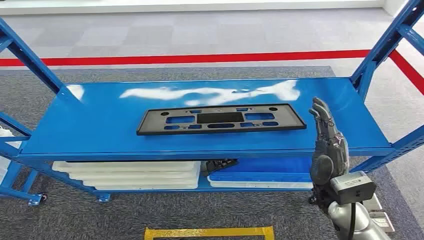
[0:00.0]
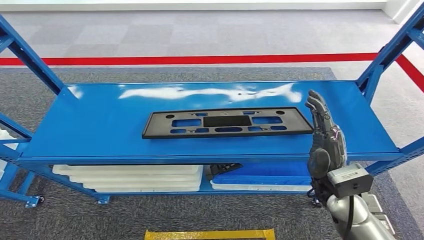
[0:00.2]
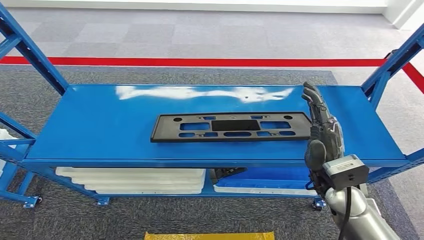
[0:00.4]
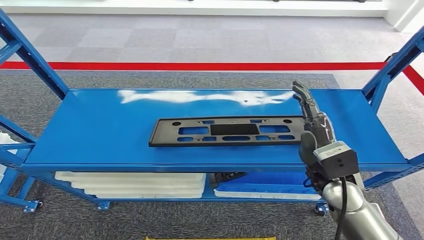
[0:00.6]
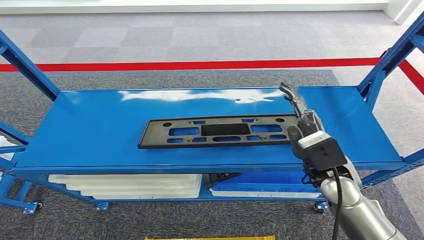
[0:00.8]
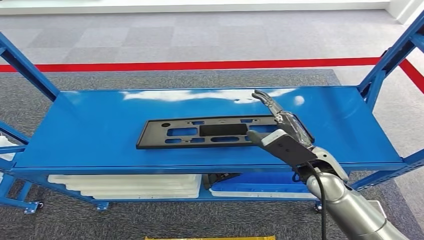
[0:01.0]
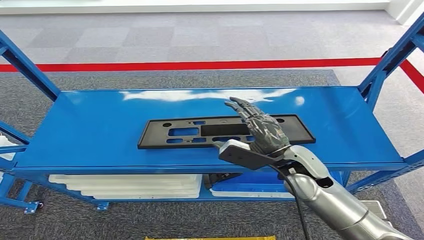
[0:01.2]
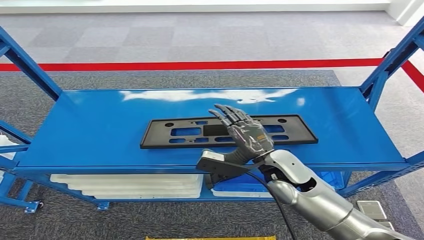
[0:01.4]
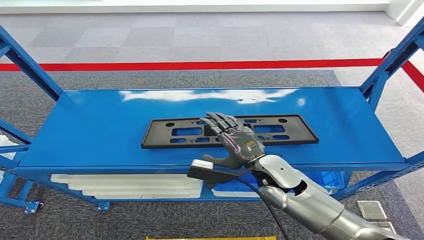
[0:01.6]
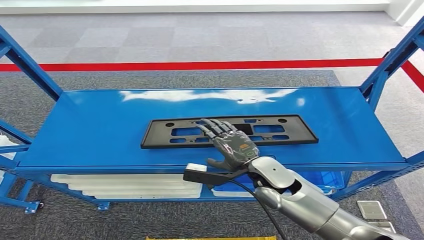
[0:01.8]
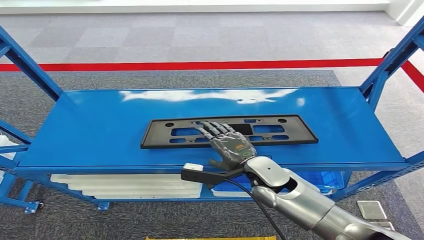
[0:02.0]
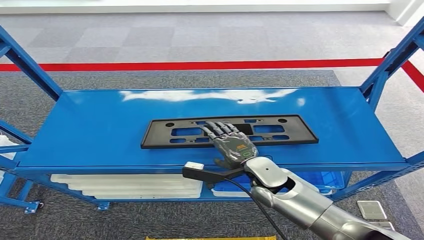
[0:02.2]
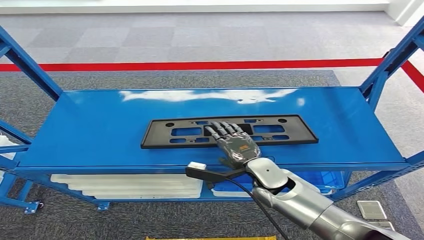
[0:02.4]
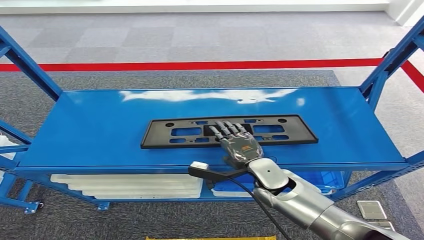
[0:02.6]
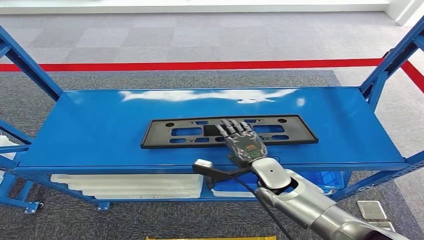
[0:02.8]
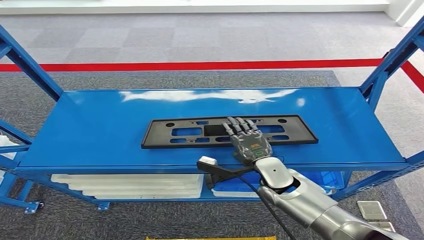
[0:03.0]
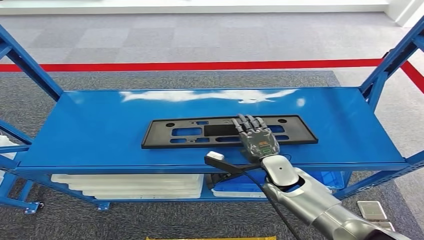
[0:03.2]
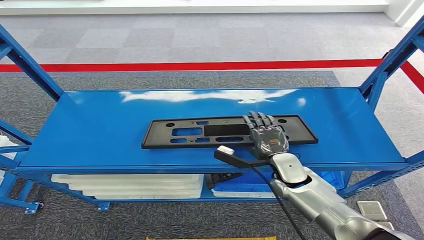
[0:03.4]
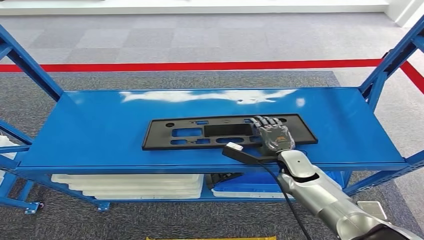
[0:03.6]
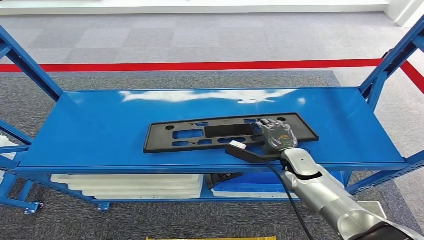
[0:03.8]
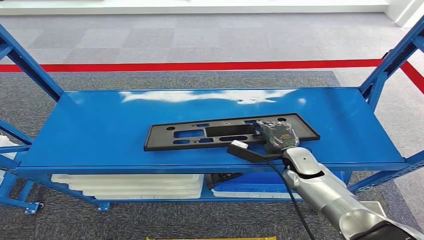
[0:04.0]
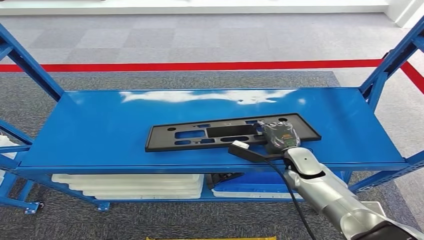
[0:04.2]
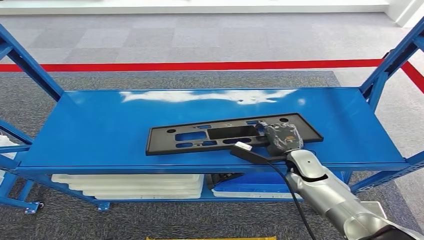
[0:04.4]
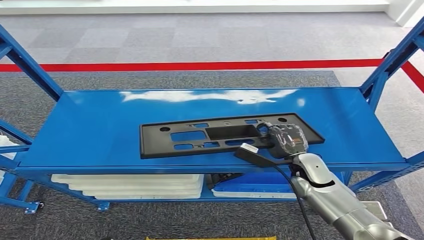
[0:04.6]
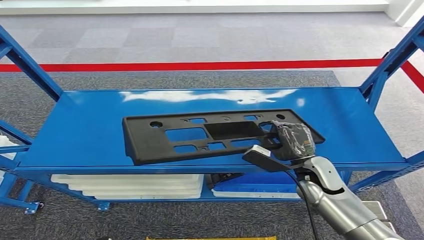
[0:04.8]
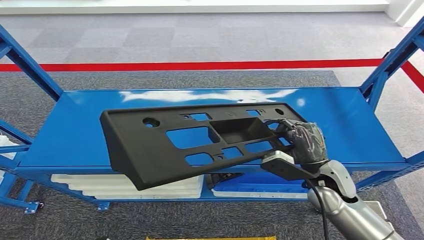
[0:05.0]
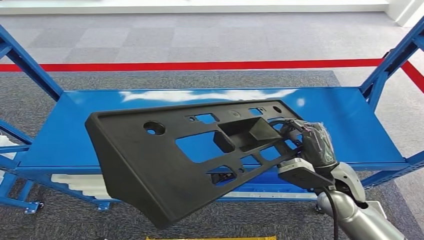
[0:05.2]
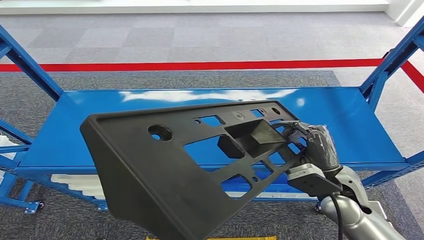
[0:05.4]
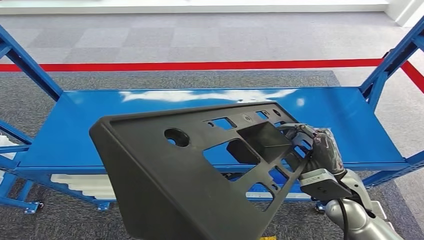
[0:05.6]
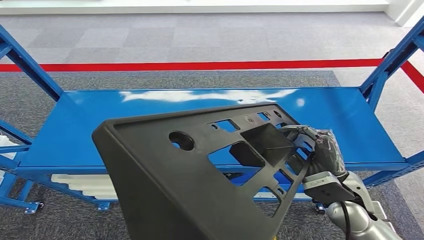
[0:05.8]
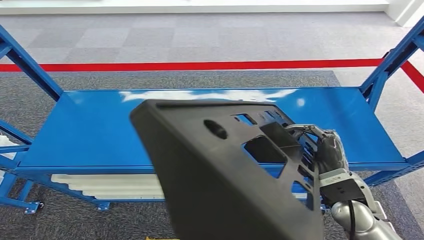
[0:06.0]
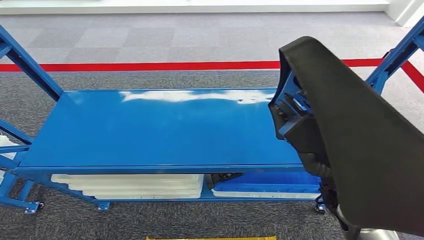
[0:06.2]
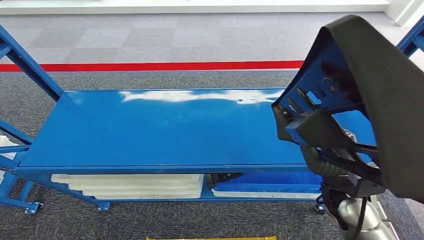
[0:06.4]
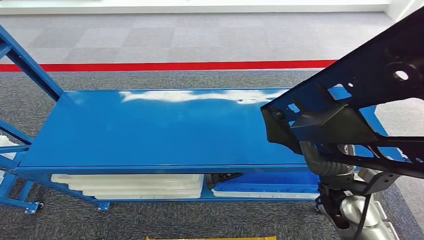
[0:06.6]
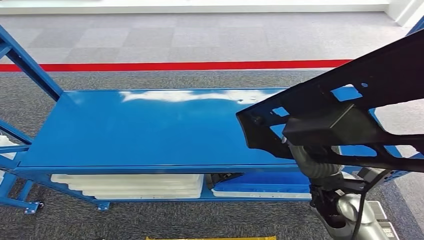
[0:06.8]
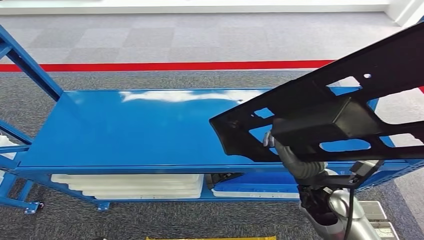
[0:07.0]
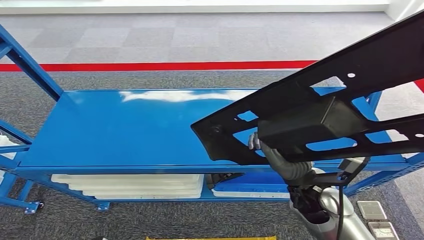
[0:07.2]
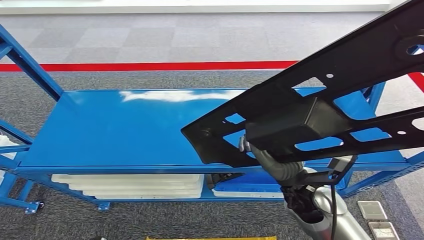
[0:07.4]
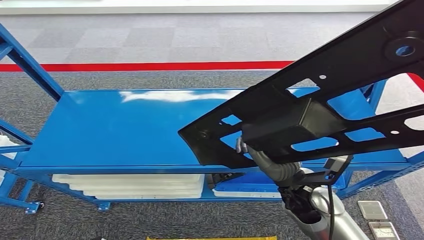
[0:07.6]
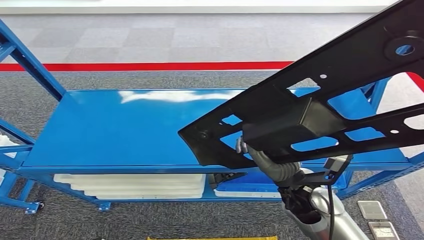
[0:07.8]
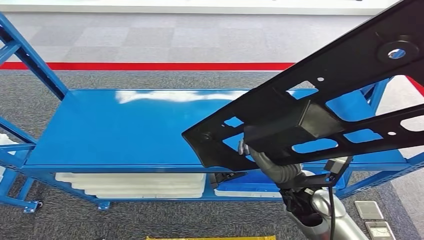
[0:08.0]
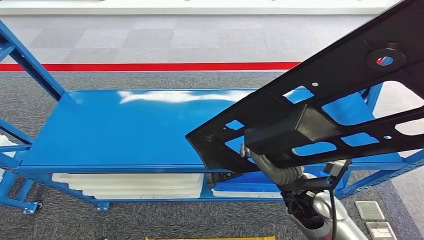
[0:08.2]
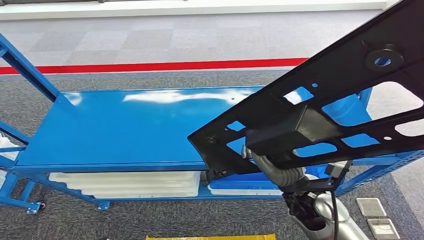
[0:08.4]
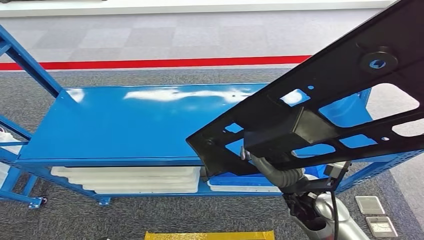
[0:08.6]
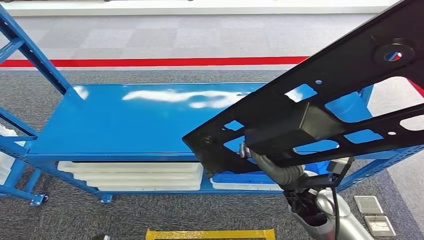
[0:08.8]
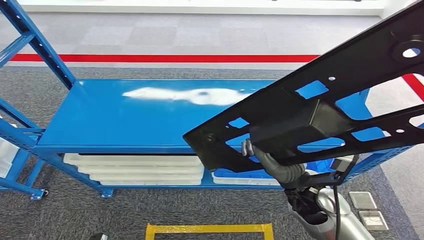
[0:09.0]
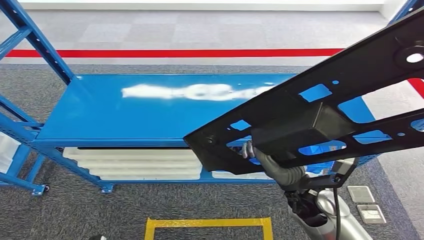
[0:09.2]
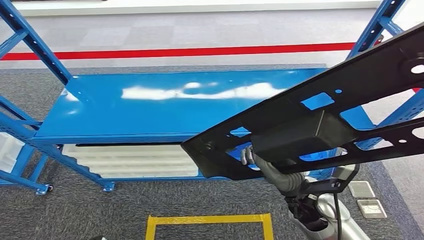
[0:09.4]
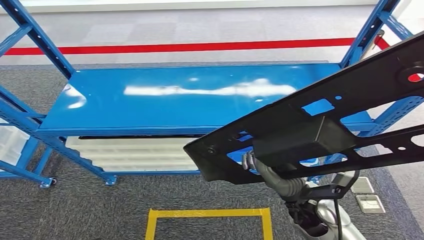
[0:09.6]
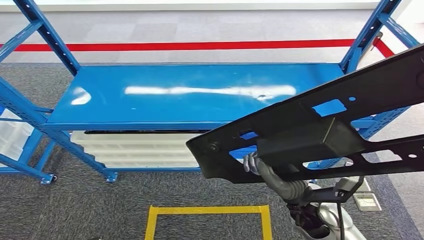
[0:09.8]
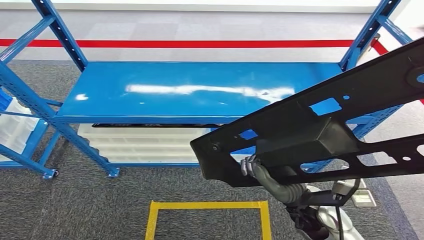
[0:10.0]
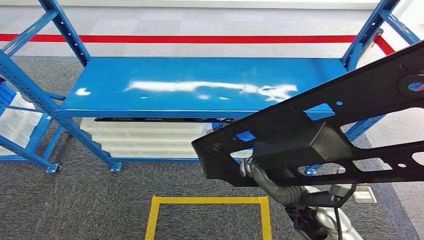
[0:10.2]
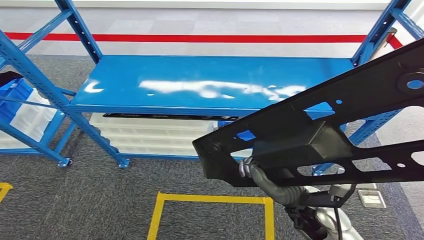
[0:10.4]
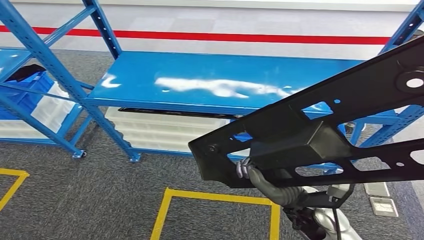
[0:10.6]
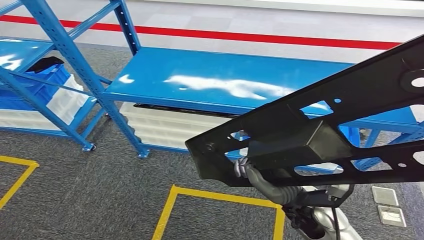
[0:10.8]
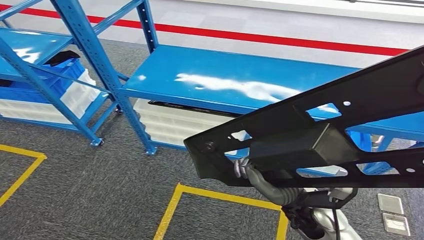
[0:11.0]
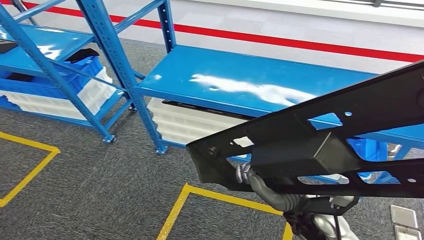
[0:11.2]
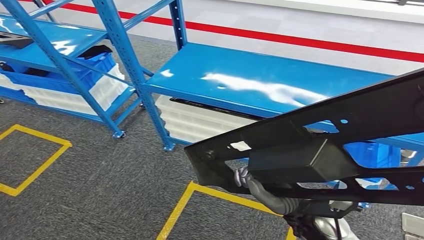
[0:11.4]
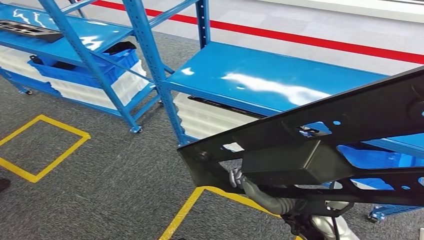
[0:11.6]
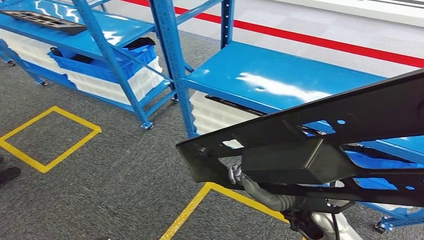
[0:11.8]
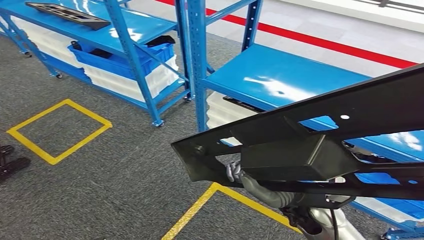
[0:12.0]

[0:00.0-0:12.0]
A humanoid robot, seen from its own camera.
Step, 0:00.0 to 0:06.2: Pick up the large material from the shelf.
0:01.6 to 0:03.0: The right hand is displaced downward by about 5 cm.
0:03.0 to 0:04.4: The right hand shifts approximately 10 cm to the right.

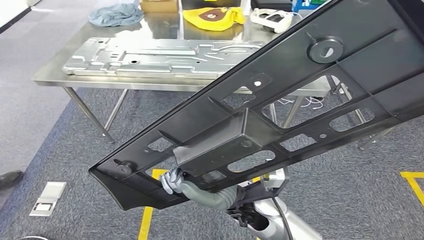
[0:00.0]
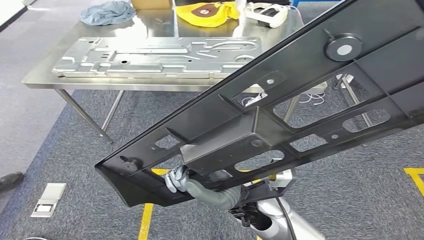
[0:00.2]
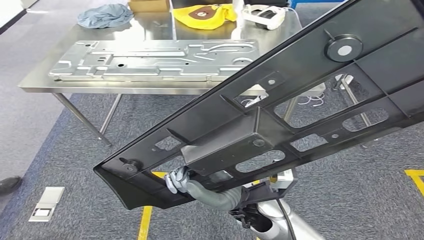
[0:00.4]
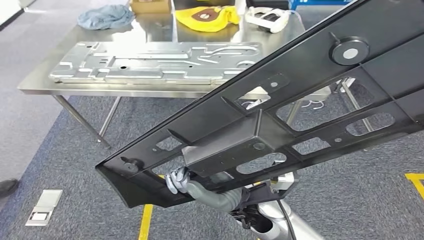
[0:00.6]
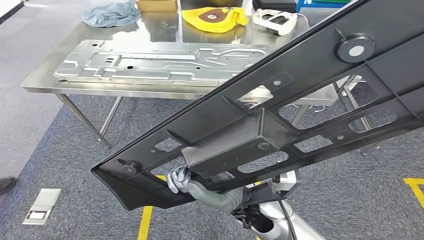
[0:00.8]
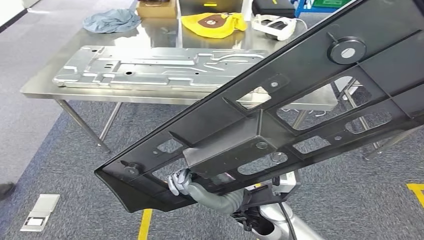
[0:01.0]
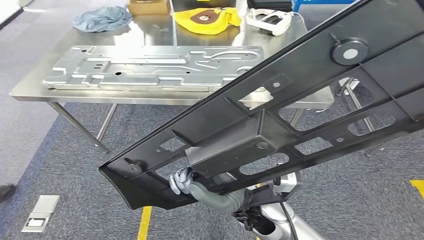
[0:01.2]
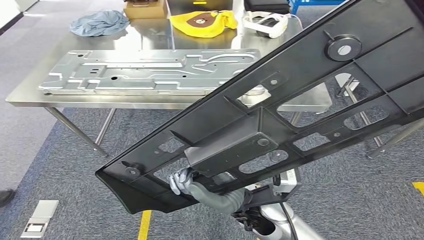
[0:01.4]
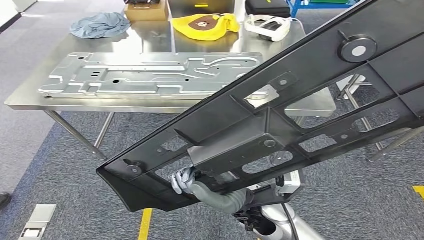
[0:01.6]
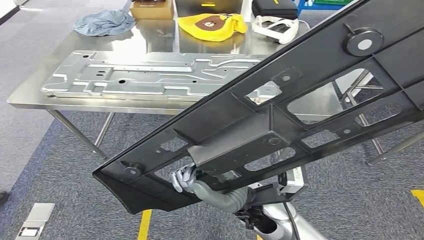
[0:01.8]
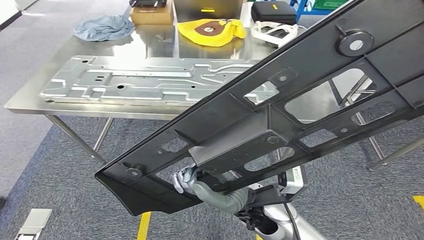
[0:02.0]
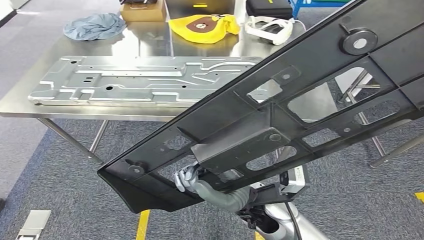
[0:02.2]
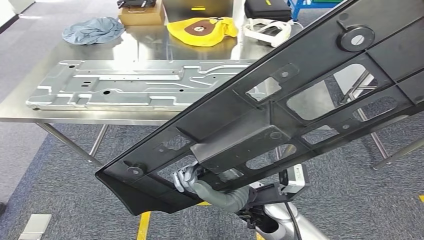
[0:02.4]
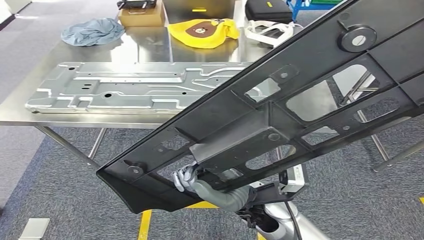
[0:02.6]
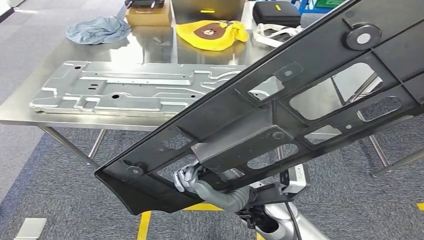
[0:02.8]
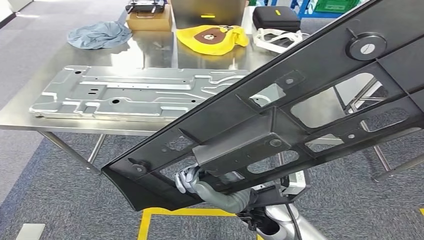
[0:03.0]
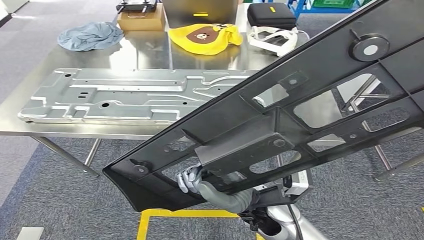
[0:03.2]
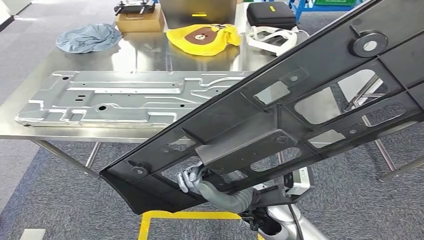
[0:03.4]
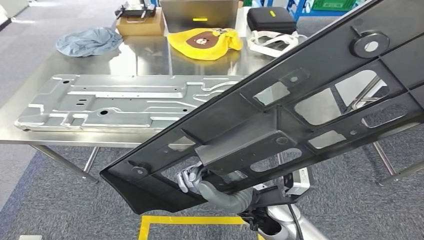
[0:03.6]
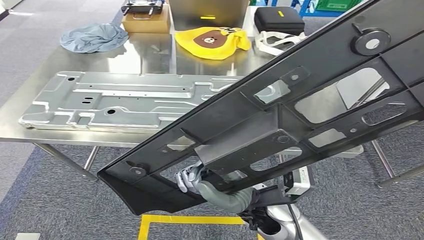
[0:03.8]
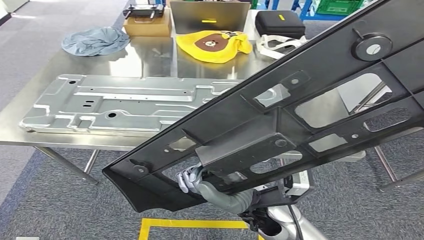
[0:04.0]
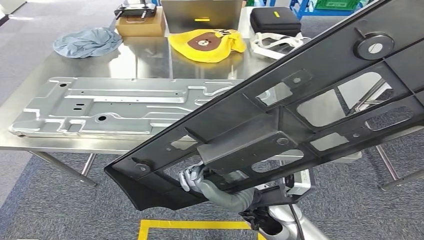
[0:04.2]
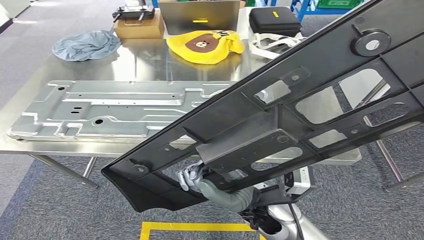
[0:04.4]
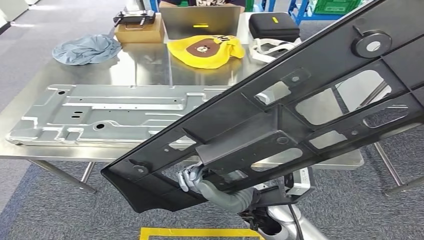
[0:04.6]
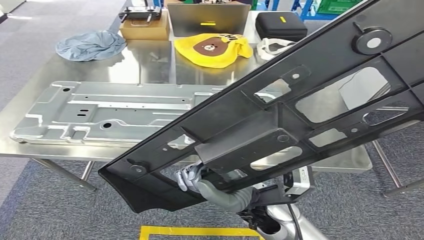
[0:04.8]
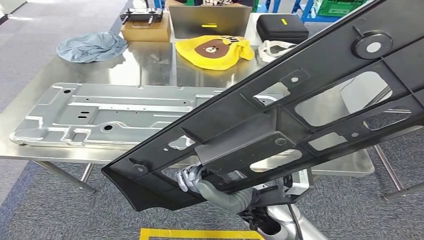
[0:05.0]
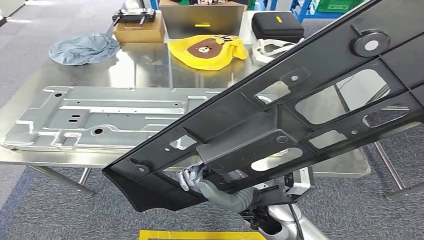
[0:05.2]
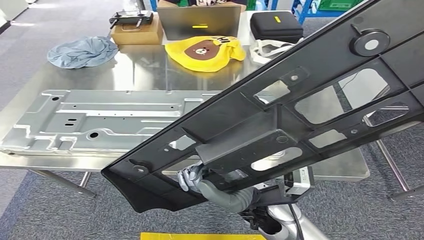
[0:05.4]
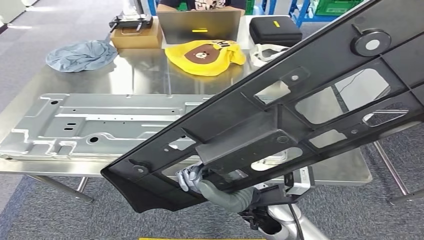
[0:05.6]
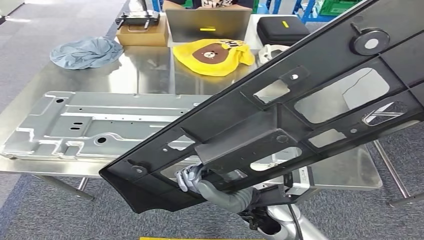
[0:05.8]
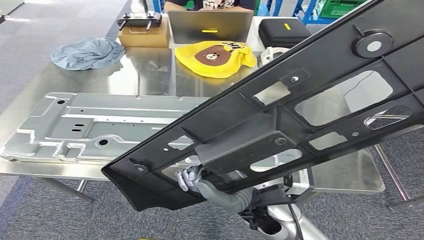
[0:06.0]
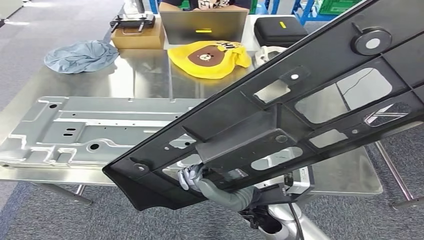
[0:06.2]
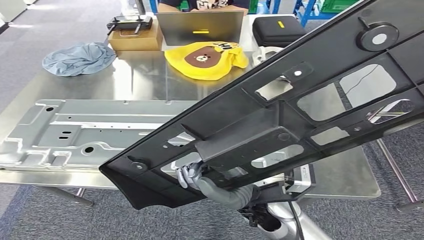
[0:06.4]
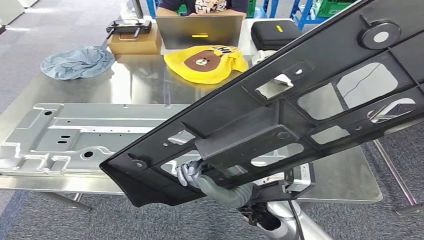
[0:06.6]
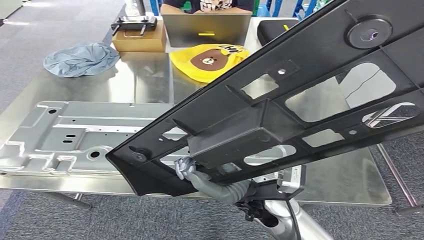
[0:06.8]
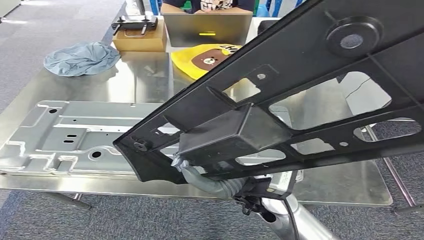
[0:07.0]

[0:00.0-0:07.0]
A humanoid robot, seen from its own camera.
Step, 0:00.0 to 0:02.6: Move the large material to the workbench.
